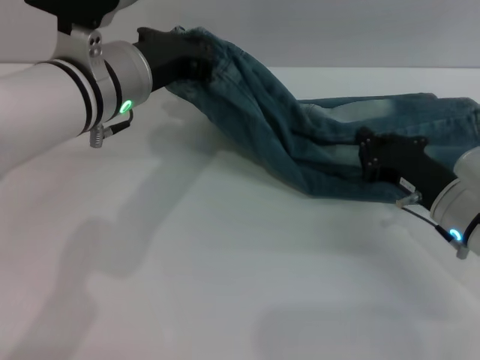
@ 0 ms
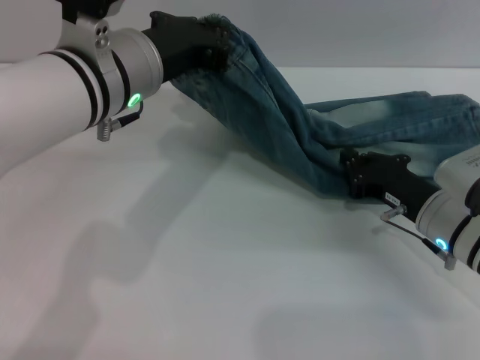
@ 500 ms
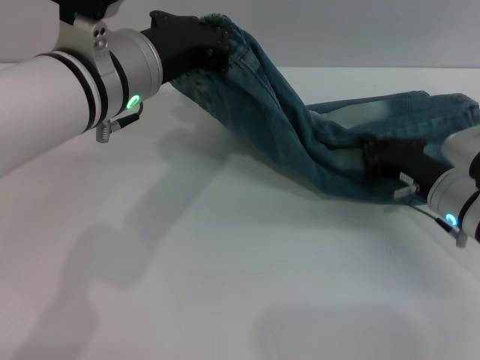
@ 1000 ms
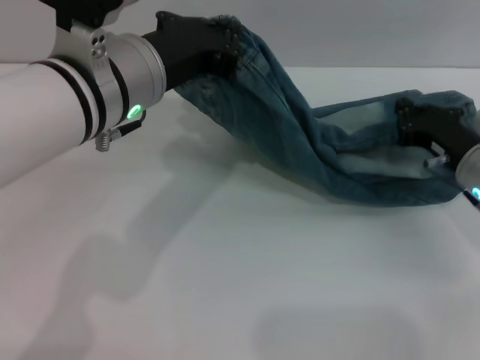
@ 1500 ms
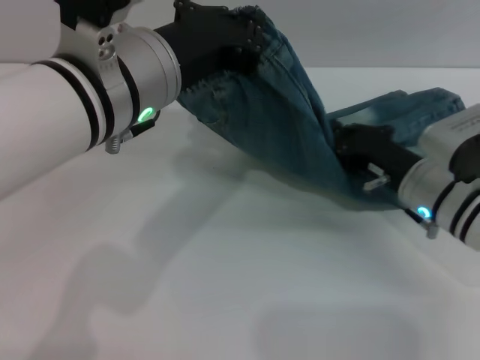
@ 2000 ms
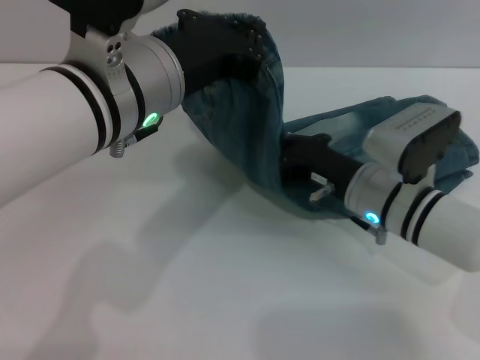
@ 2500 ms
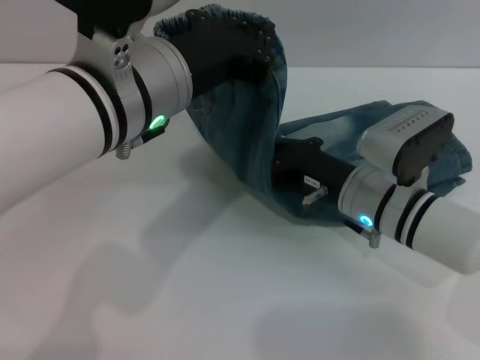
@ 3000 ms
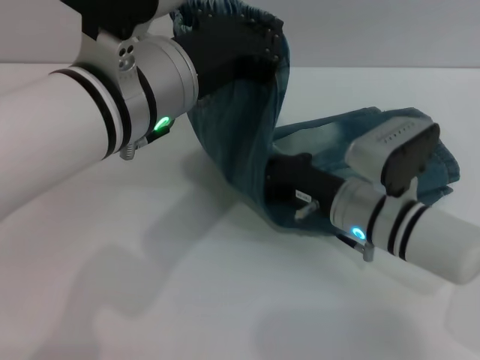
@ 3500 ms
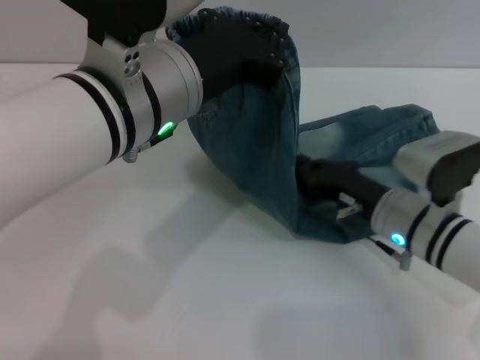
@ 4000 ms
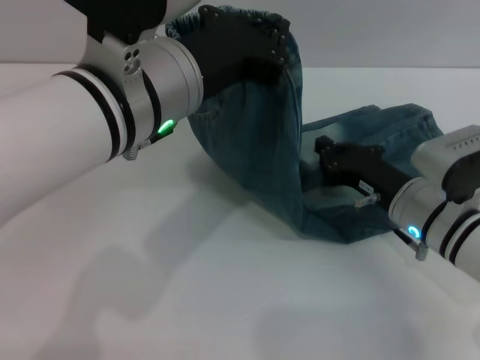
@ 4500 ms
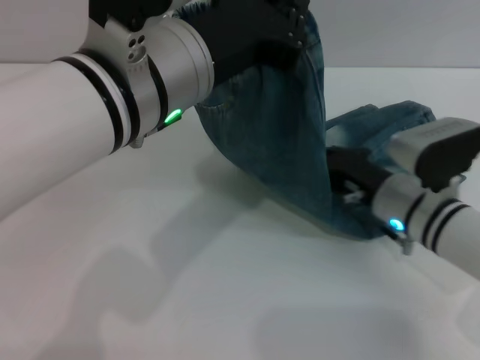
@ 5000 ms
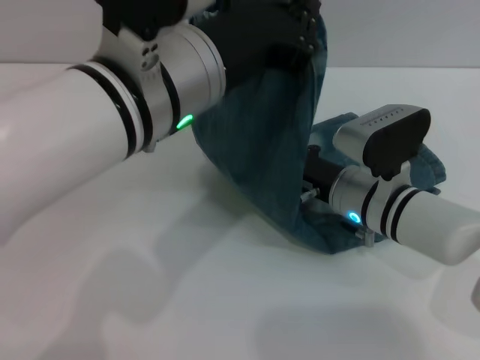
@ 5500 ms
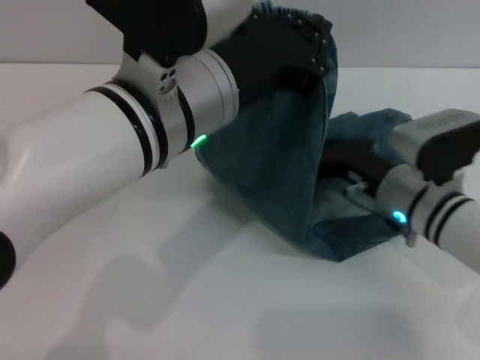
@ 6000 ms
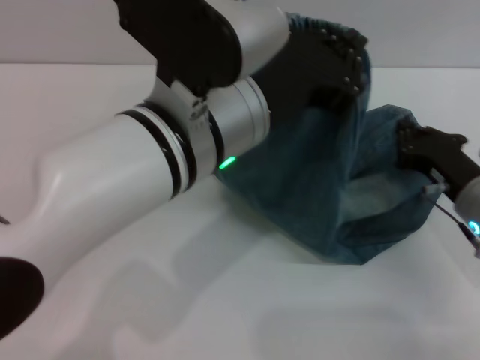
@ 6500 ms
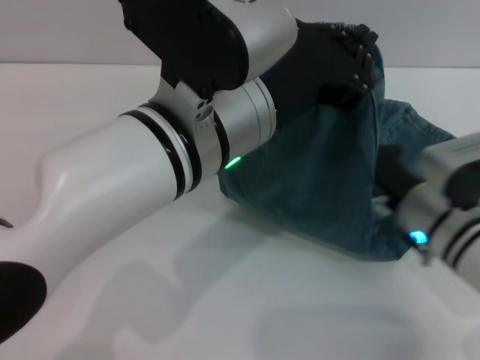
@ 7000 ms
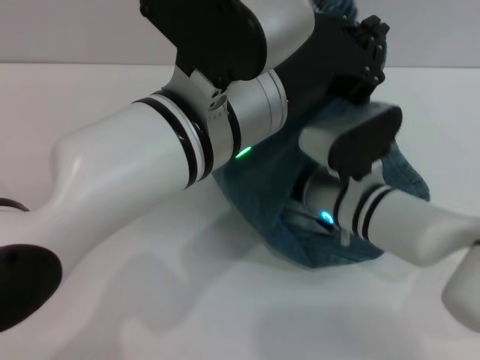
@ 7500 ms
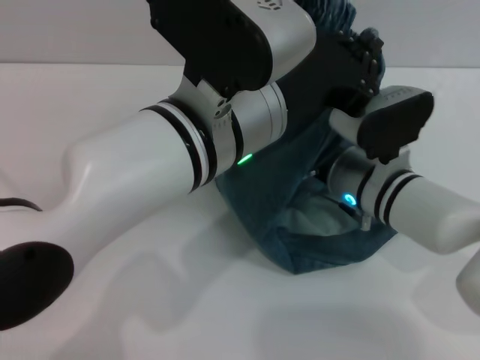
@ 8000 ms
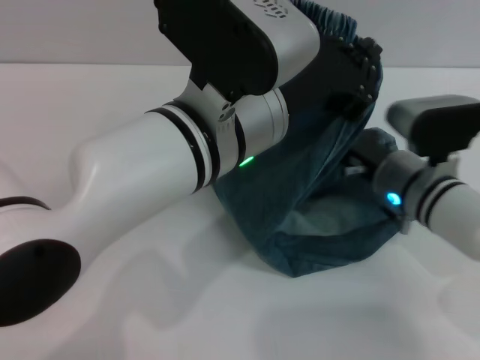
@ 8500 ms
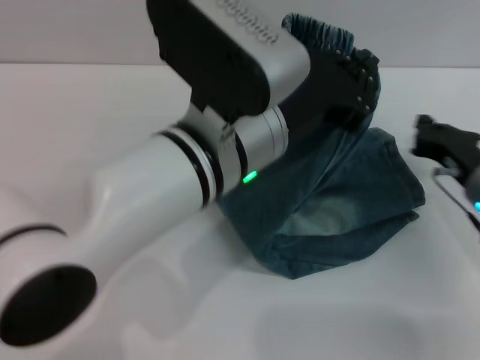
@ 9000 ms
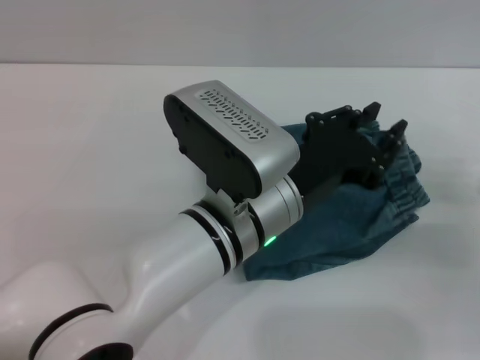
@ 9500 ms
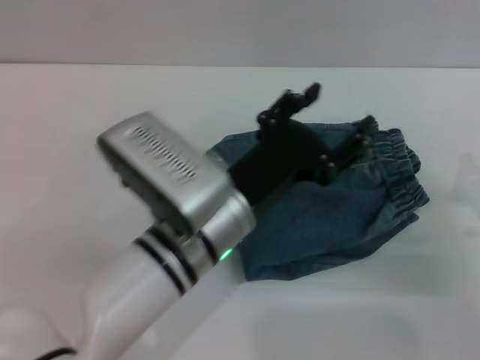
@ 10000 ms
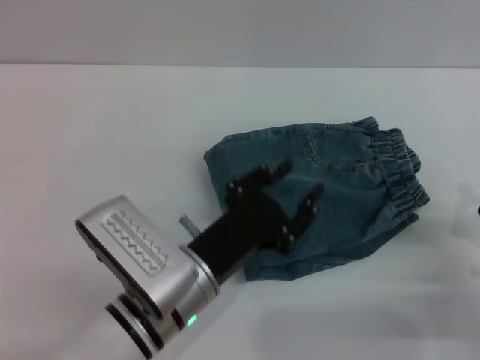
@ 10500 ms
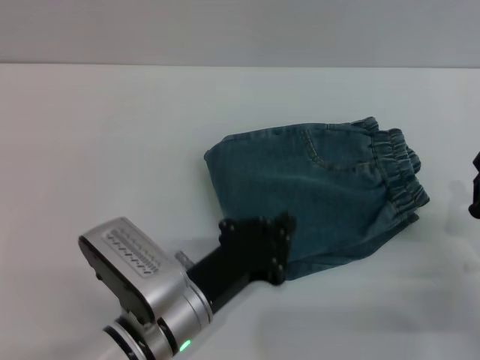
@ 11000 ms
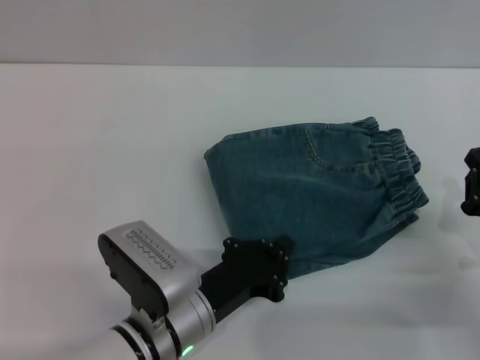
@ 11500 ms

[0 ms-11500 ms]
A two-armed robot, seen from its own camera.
Step, 0 ms to 10000 ms: Fold the pants from left to right with the left gripper.
0 ms to 2000 ms: The left gripper moves roughly 5 cm.
6000 ms to 7500 ms: The right gripper heads to the left, covering approximately 10 cm.
7500 ms to 9500 ms: The left gripper shifts about 10 cm downward. Meanwhile the right gripper is displaced to the right by about 20 cm.
9500 ms to 11500 ms: The right gripper shifts by roughly 5 cm, while the left gripper is displaced downward and to the left by roughly 15 cm, and opens, then closes once more.

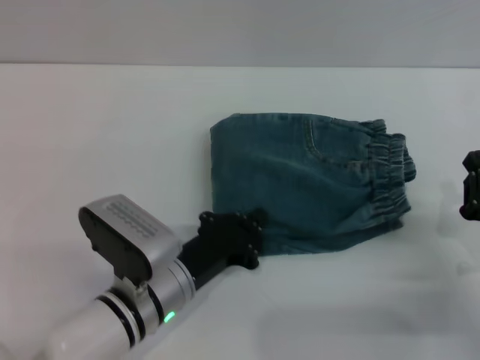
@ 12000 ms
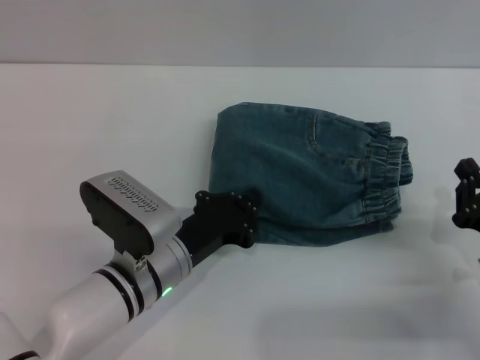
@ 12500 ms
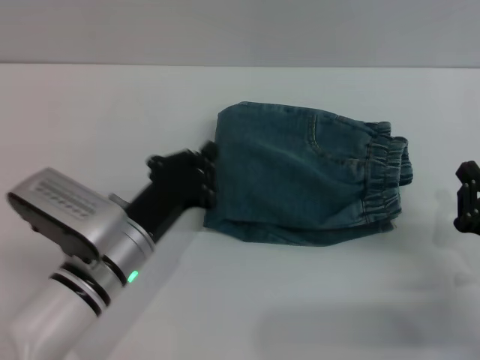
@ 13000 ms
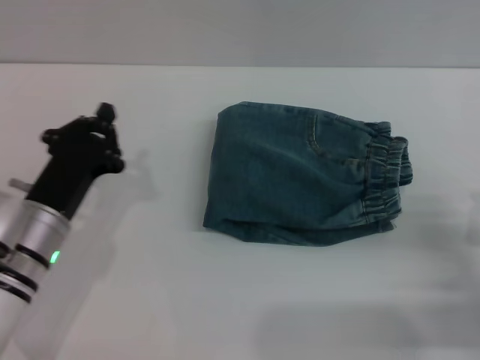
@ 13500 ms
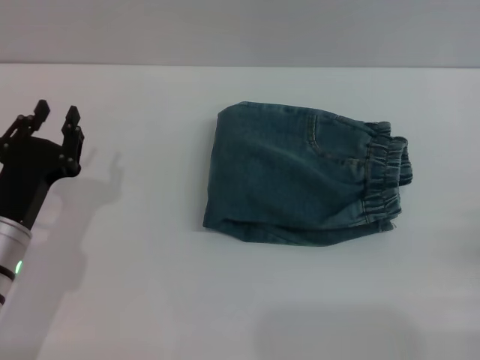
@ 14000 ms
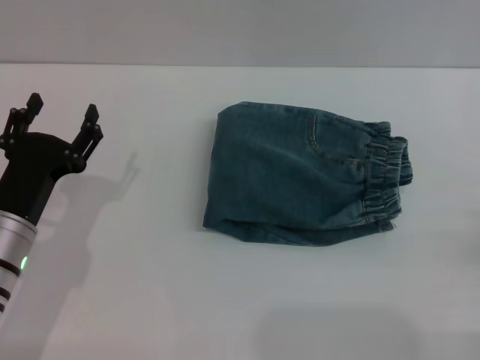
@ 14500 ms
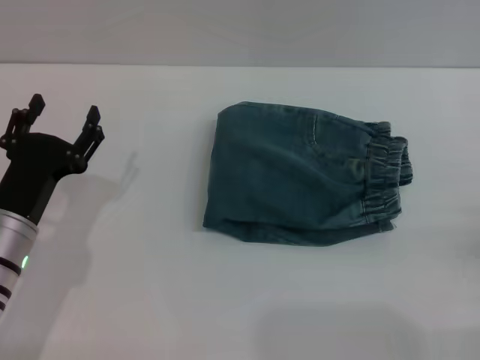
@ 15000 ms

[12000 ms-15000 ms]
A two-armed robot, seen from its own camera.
12000 ms to 13500 ms: The left gripper shifts some 10 cm to the left.
13500 ms to 15000 ms: The left gripper opens. The right gripper is displaced to the right by about 5 cm, and opens its fingers.

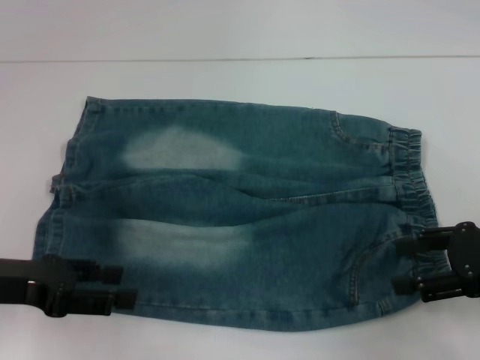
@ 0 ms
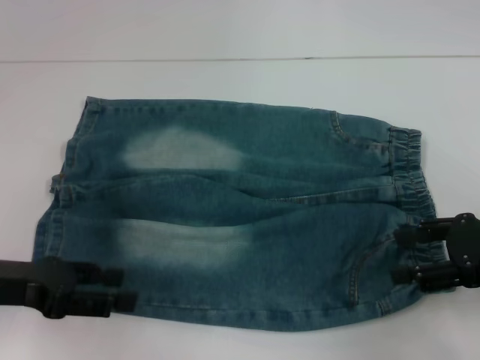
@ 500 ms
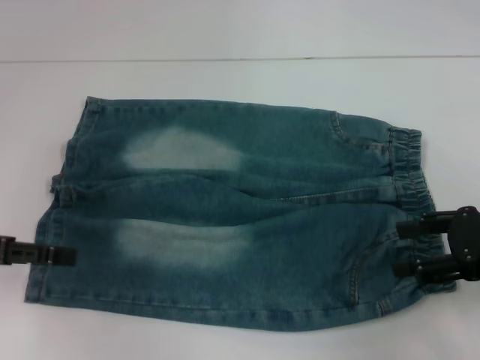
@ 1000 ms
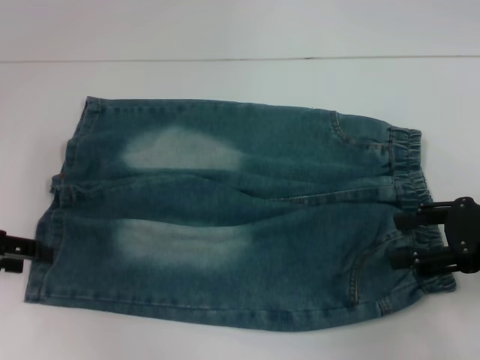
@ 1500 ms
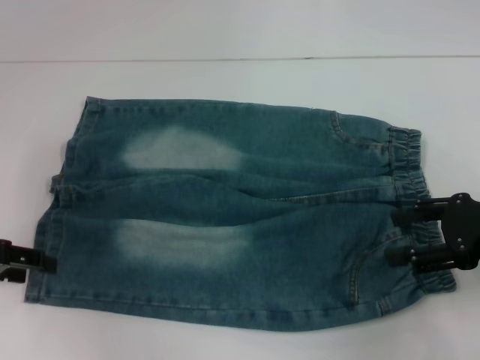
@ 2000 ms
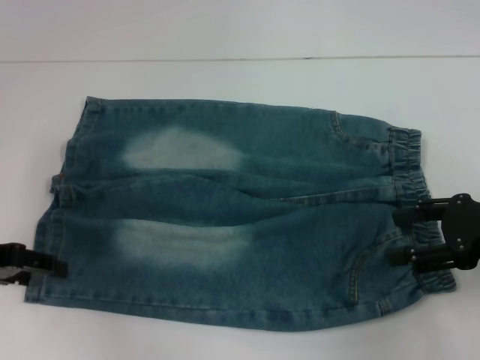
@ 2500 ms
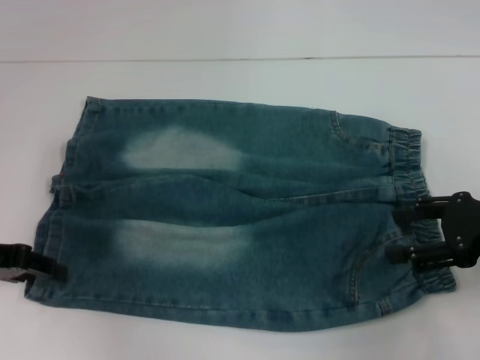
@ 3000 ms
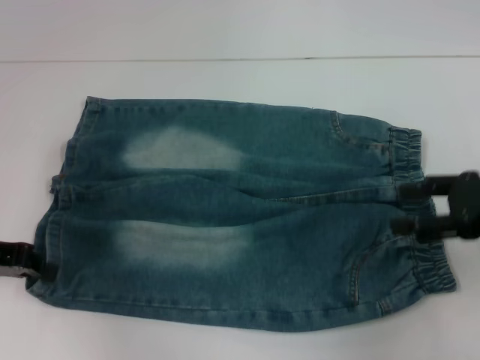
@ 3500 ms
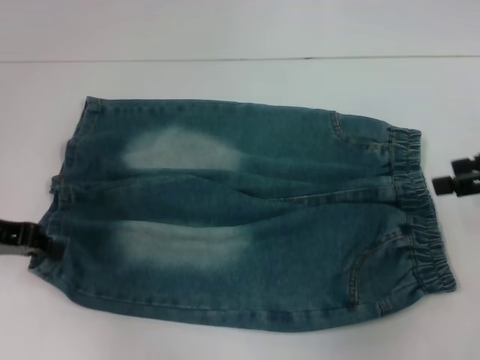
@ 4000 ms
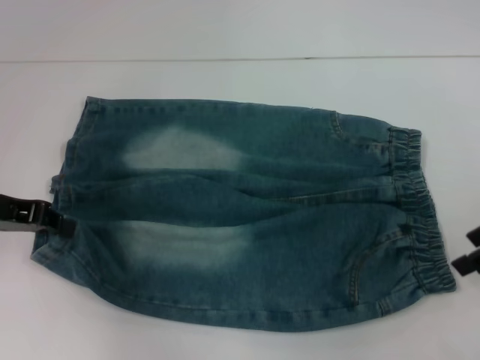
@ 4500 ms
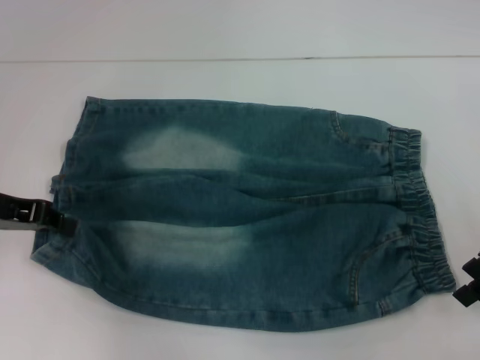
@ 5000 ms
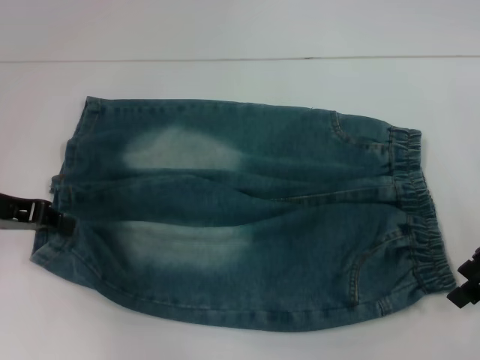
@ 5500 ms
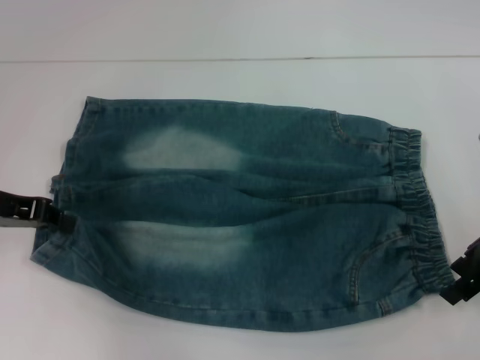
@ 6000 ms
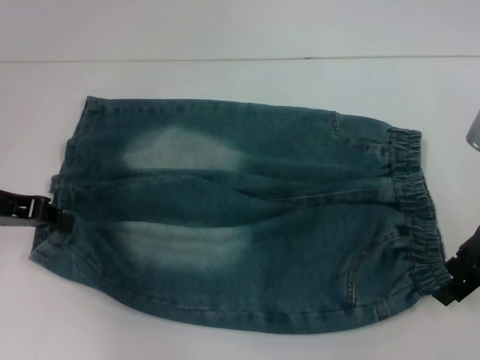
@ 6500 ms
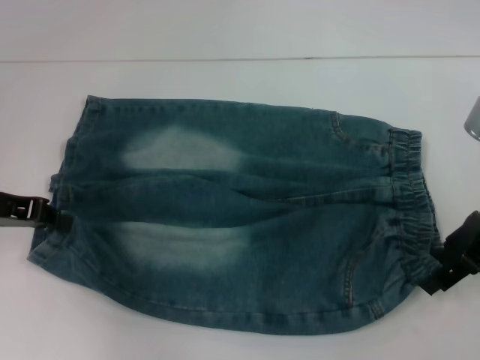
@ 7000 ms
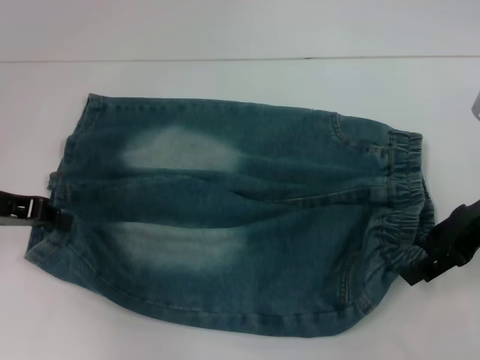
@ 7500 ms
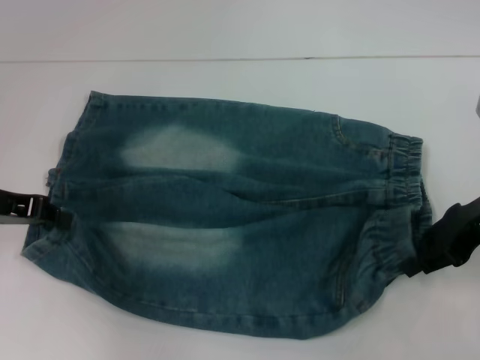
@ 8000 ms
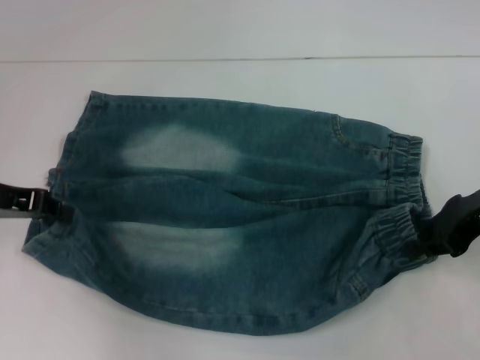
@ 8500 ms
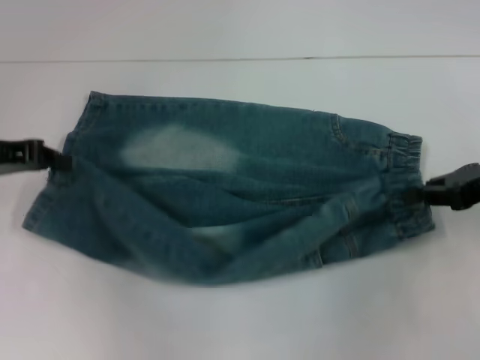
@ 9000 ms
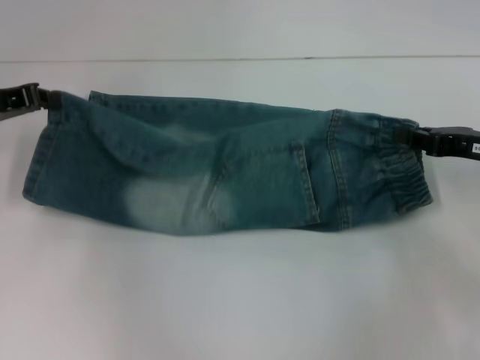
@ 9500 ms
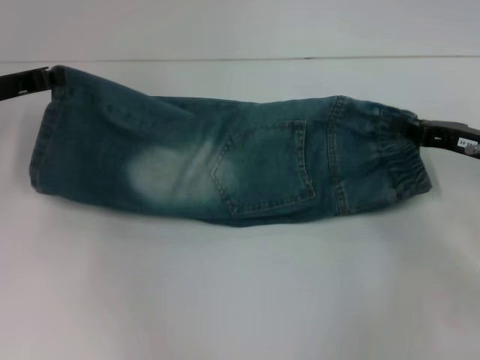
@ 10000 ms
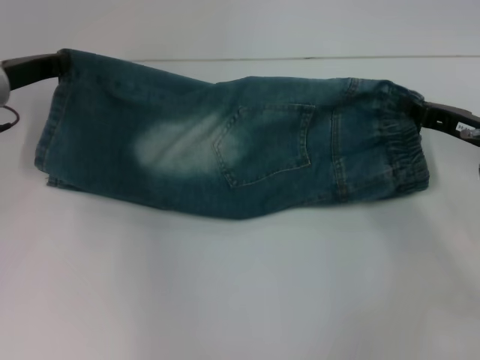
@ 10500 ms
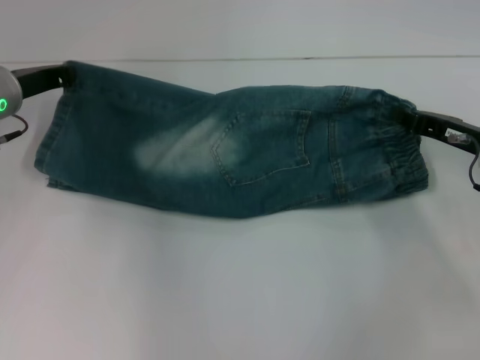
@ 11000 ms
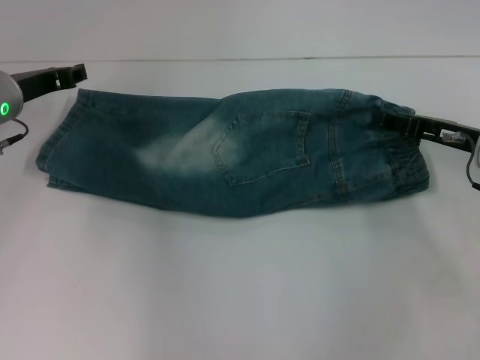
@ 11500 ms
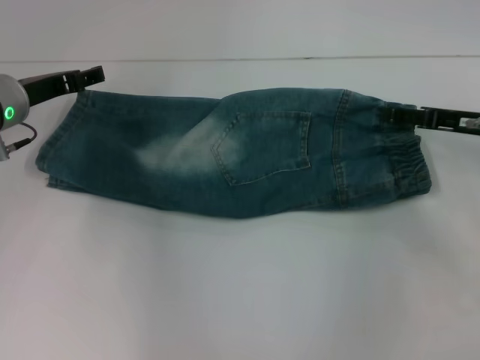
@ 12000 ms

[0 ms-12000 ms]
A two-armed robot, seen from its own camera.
Step, 0 ms to 3000 ms: Grab the lower left pant leg with your left hand.
Step, 3500 ms to 7000 ms: Hold the lower right waistband with your right hand.
Step, 7500 ms to 12000 ms: Fold upward with your right hand.
0 ms to 2000 ms: The left gripper travels to the left by roughly 5 cm.
2000 ms to 4000 ms: The left gripper closes up, while the right gripper moves upward, roughly 5 cm.
4000 ms to 6000 ms: The right gripper is displaced to the left by some 5 cm.
6000 ms to 8000 ms: The grippers make only small movements.
8000 ms to 10000 ms: The right gripper goes approximately 5 cm downward, and closes, while the left gripper moves forward, some 5 cm.
10000 ms to 12000 ms: The left gripper changes place by roughly 5 cm, and opens. The right gripper opens.
